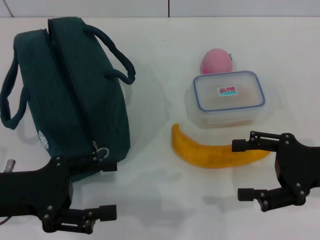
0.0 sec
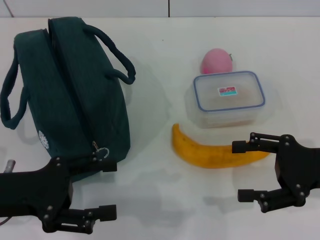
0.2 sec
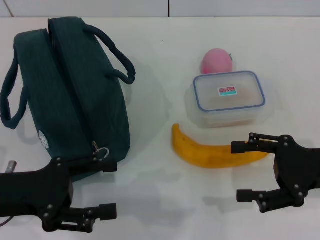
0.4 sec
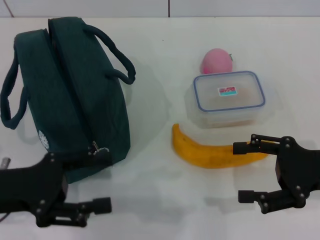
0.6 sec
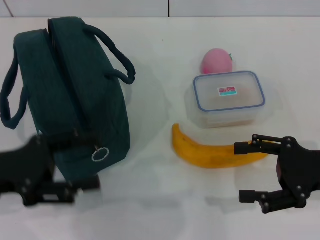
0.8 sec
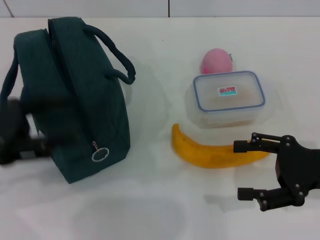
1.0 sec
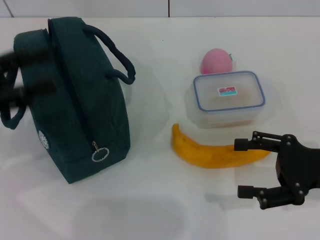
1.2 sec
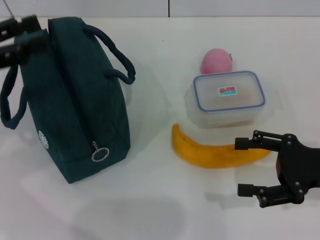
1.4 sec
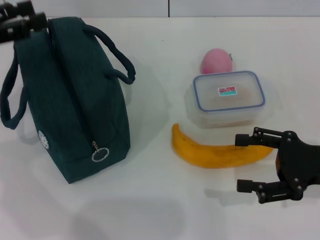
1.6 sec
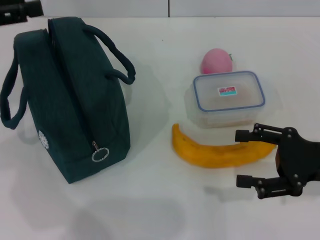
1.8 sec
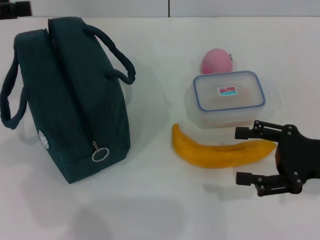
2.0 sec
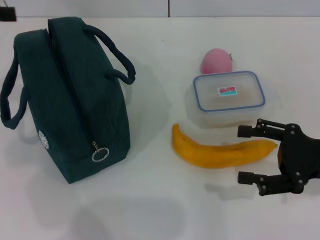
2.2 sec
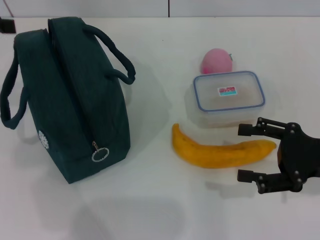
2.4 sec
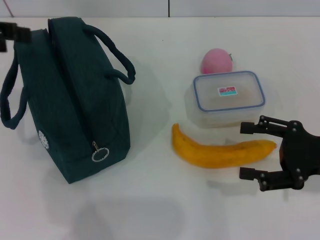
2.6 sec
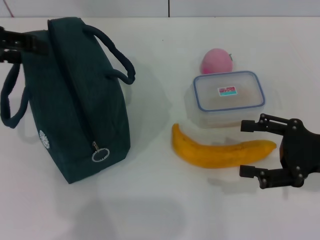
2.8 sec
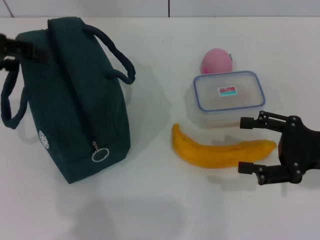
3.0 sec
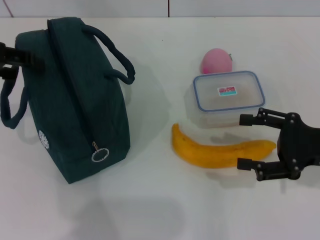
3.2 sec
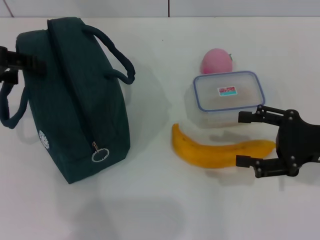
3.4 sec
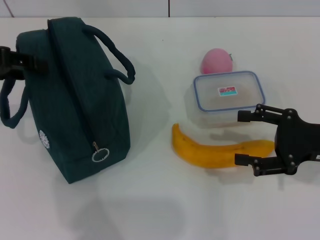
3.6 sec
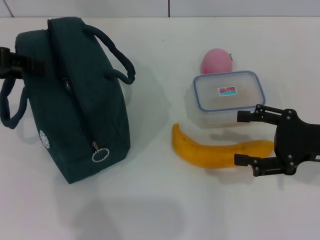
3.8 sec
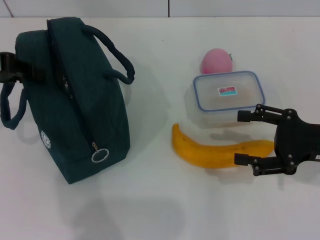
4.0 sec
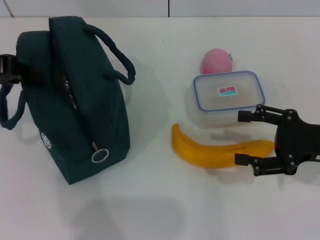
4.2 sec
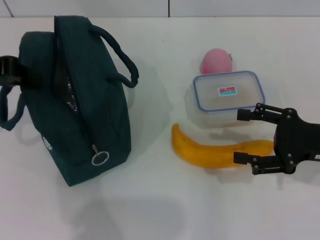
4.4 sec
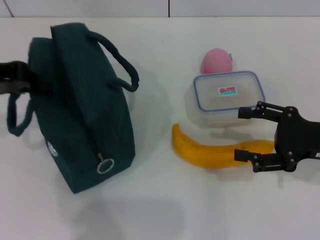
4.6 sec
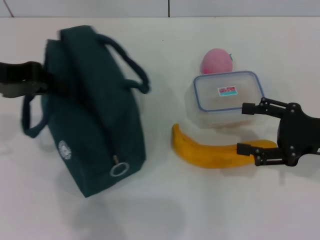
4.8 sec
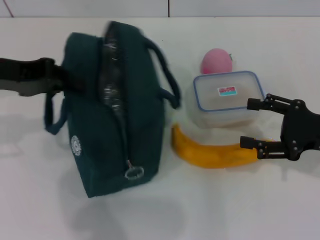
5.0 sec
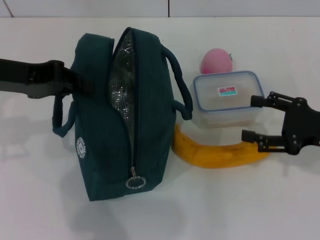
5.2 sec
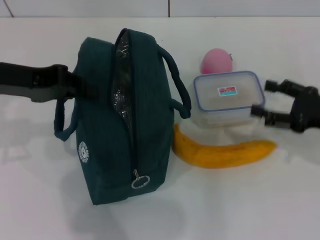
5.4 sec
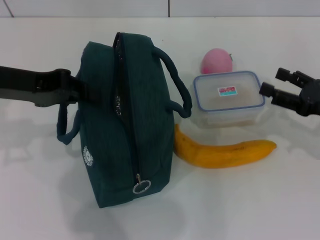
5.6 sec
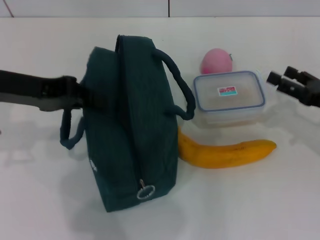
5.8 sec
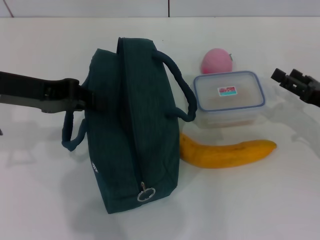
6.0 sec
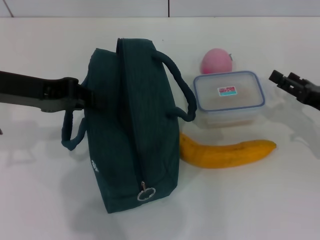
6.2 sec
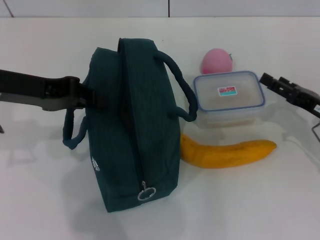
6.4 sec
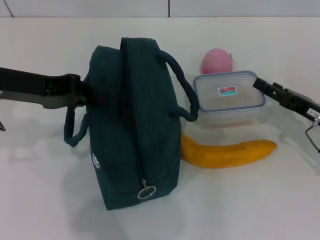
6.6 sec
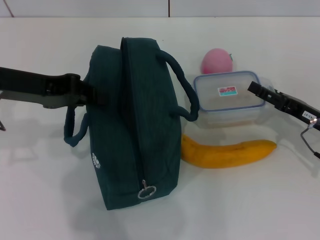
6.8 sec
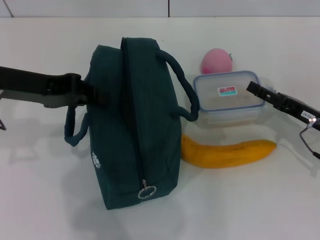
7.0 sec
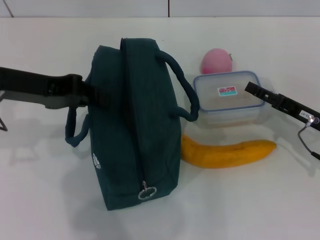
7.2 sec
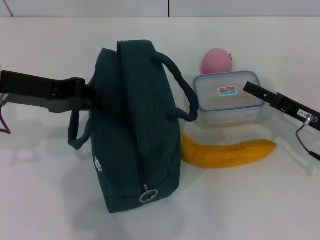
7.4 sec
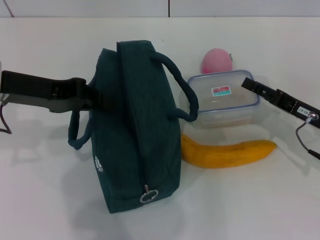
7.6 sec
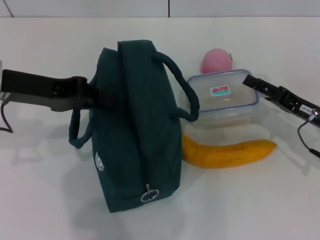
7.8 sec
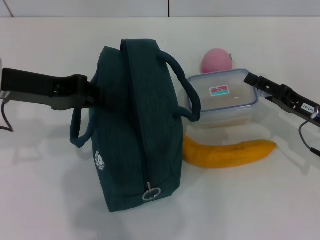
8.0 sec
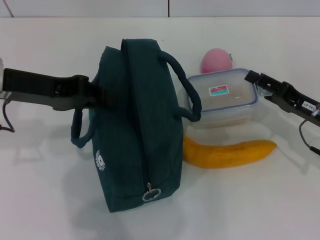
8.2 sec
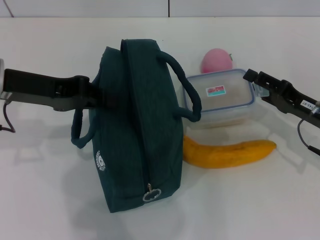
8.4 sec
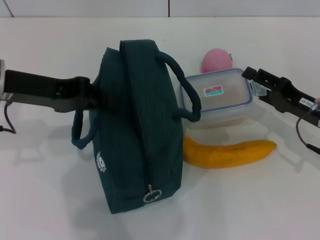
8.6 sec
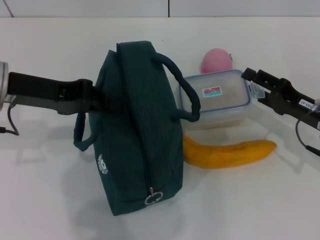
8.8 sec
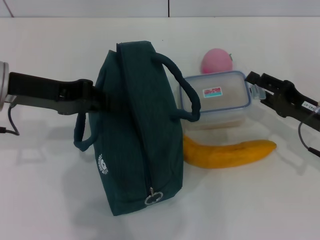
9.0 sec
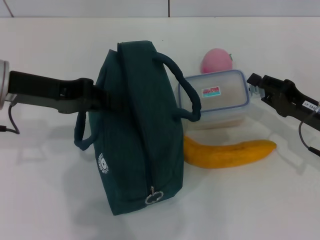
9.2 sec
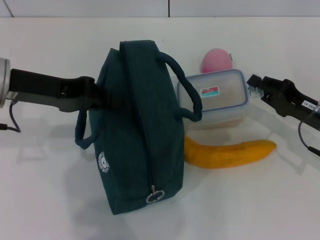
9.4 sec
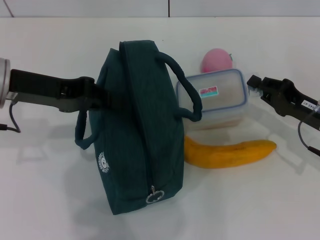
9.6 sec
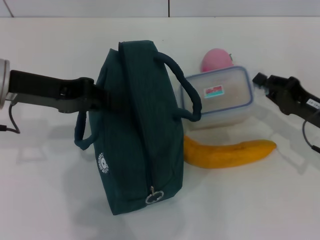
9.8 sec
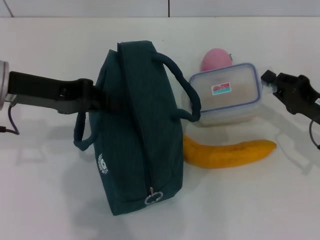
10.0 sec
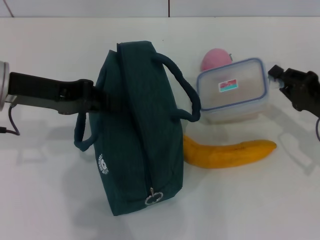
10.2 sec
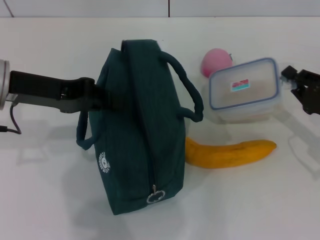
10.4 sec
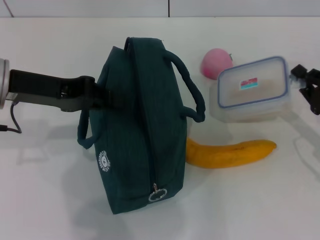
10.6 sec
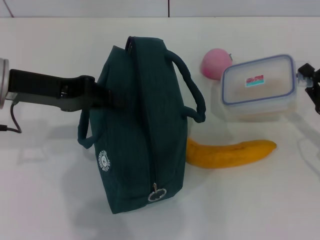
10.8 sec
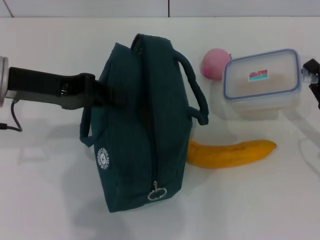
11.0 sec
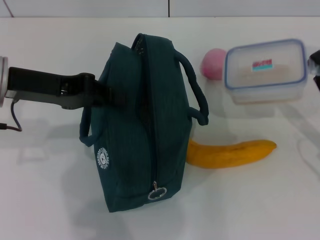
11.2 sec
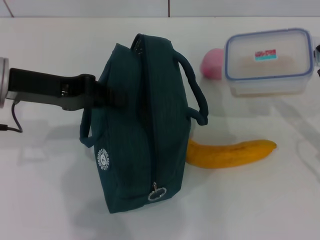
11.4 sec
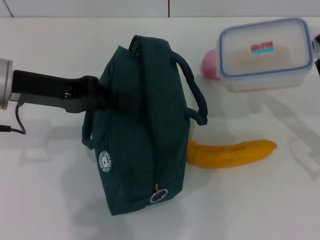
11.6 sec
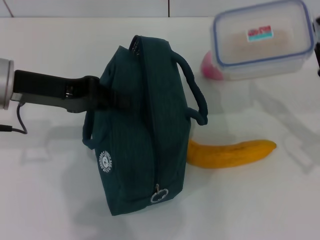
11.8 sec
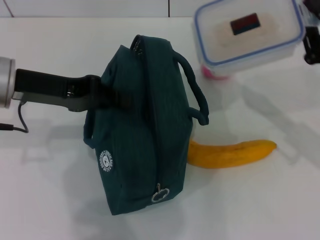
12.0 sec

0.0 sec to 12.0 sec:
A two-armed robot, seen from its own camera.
Step, 0.0 sec to 4.4 sec: Hold the lunch bag with your left hand.
Step, 4.8 sec to 10.0 sec: Pick up the lunch box with your right hand.
0.0 sec to 1.6 sec: The left gripper heads forward, upward and to the left, covering approximately 15 cm.
1.6 sec to 3.0 sec: The left gripper heads upward, covering about 5 cm.
3.0 sec to 4.4 sec: The left gripper closes.
4.4 sec to 6.0 sec: The right gripper ends up approximately 5 cm from where it was. Meanwhile the left gripper is displaced to the right by roughly 5 cm.
6.0 sec to 7.6 sec: There are only small adjustments of the grippers.
9.0 sec to 10.4 sec: The right gripper closes its fingers.
10.4 sec to 12.0 sec: The right gripper is displaced upward by roughly 5 cm.

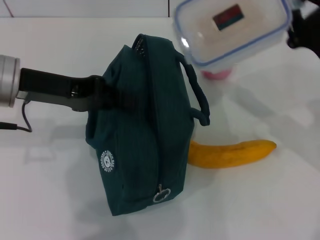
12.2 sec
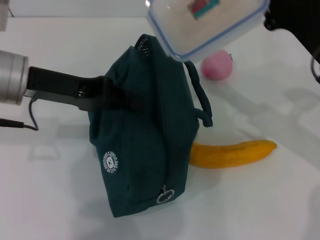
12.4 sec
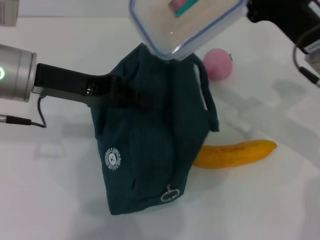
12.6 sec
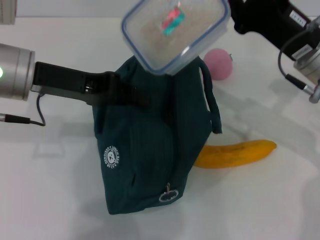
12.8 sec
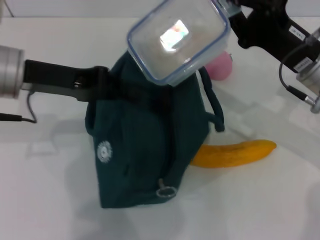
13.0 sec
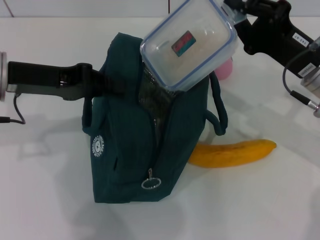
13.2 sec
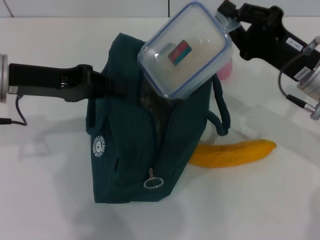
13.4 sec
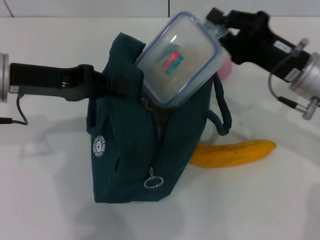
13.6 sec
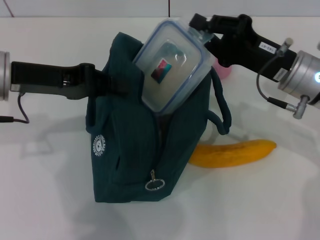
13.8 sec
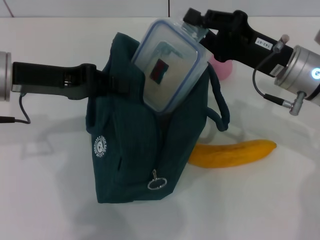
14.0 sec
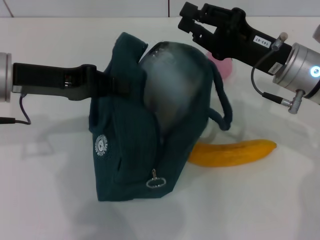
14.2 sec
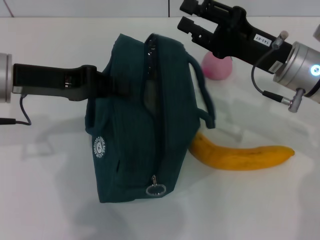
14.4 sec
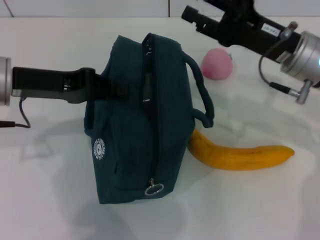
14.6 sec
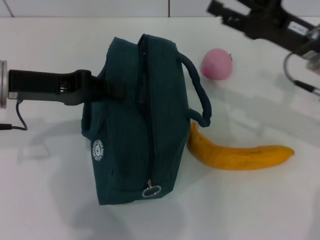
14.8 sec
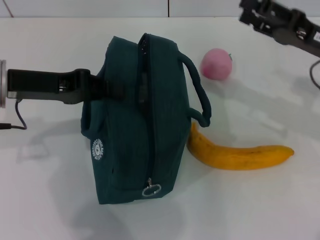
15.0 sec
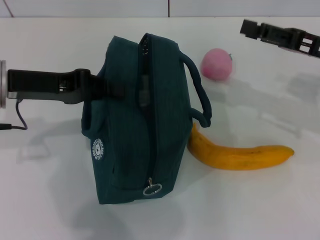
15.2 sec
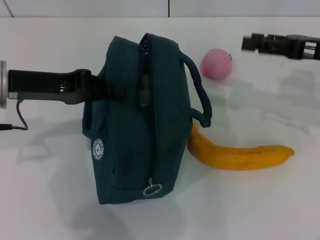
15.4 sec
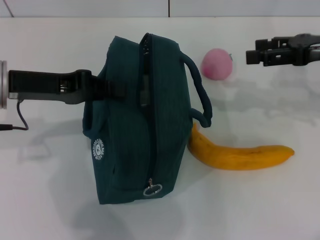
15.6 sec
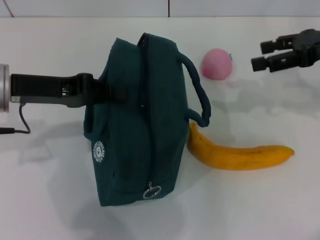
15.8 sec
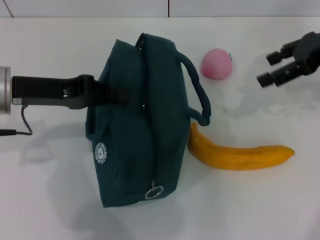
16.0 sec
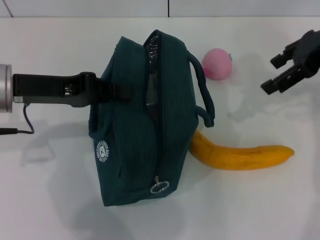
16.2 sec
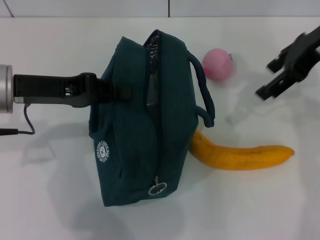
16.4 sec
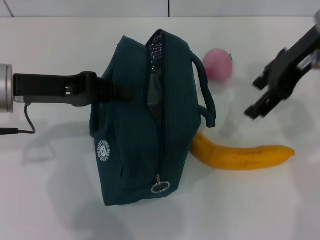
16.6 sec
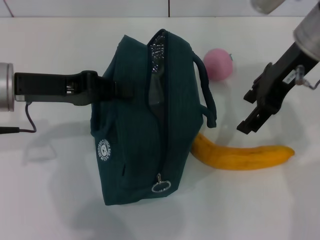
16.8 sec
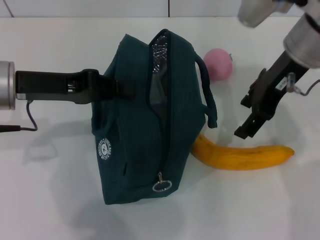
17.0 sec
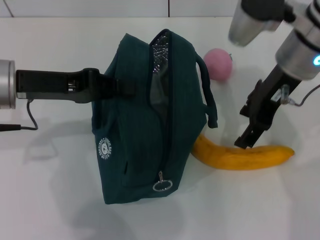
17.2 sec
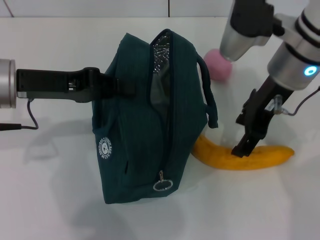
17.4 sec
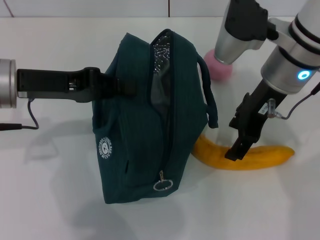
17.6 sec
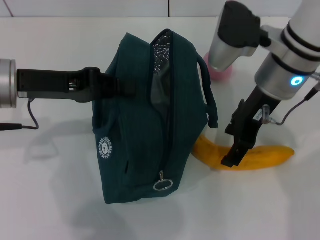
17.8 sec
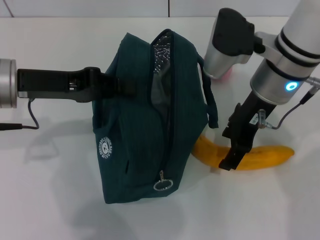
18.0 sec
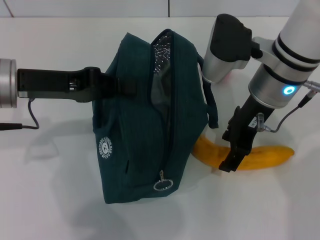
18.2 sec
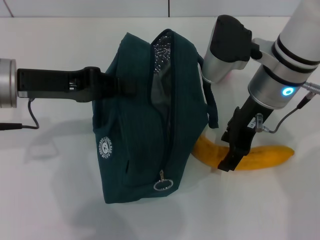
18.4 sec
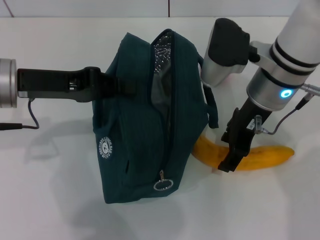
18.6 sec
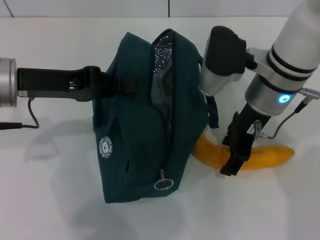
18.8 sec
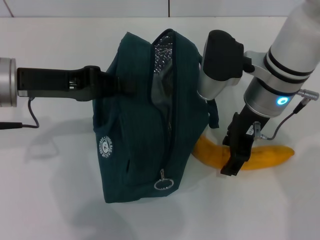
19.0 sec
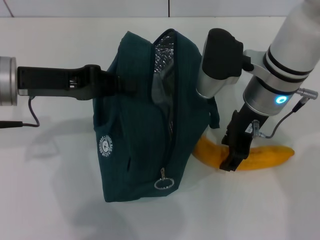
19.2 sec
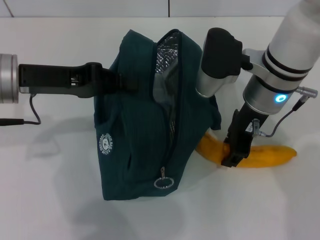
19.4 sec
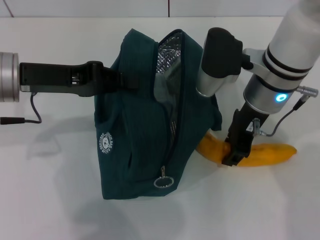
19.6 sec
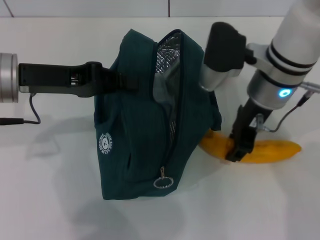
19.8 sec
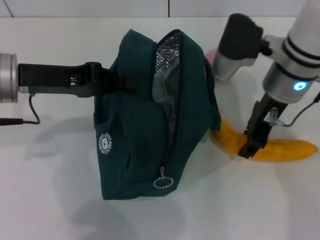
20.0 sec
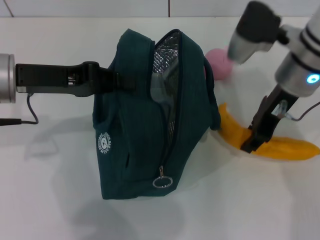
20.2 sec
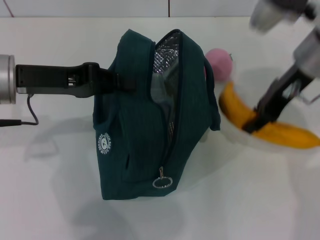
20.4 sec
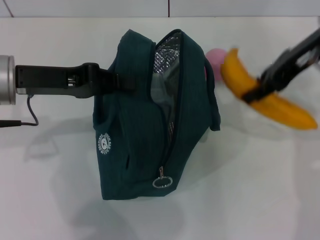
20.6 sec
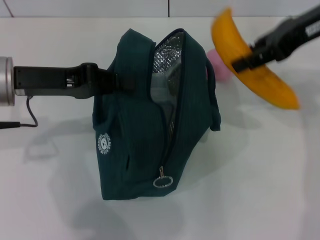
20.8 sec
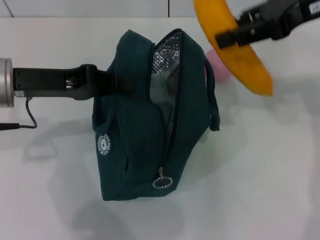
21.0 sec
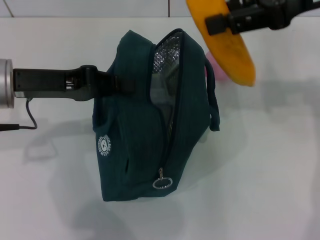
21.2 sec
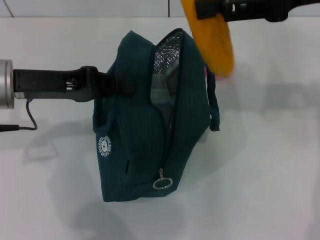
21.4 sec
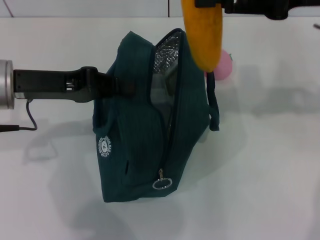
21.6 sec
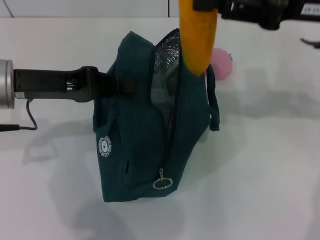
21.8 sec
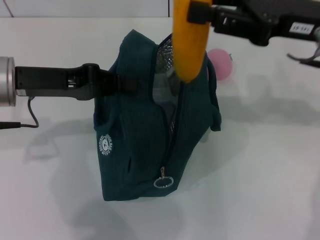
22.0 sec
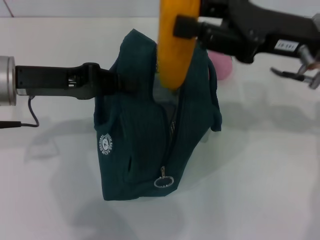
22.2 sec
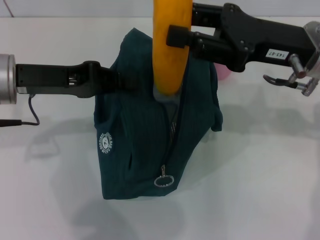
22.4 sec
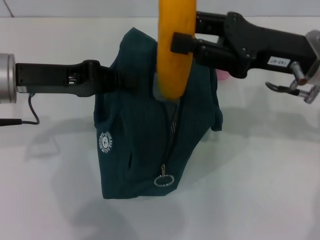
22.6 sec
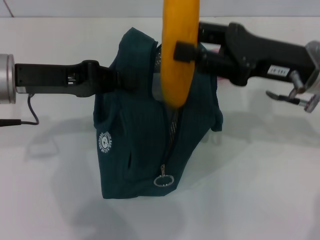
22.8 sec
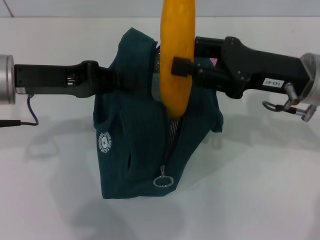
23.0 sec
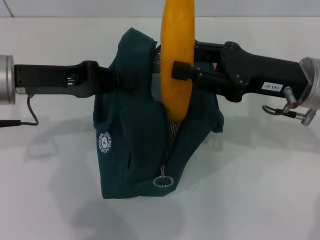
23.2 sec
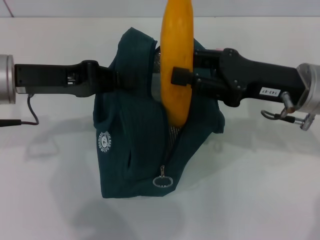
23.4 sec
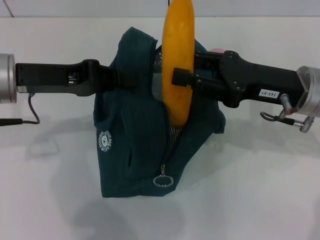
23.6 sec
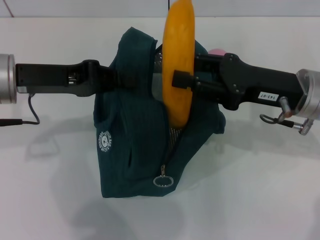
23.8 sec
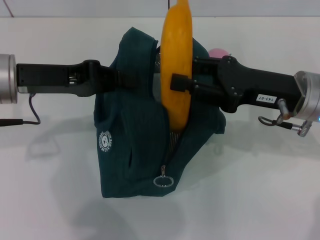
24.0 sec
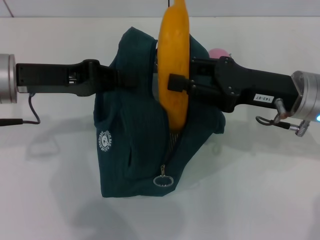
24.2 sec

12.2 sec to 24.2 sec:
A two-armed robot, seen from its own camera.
Step, 12.2 sec to 14.2 sec: Place the lunch box into the lunch bag with your right hand.
Step, 14.4 sec to 19.8 sec: Take the banana with your right hand.
12.2 sec to 13.8 sec: The right gripper is displaced to the left by some 5 cm.
13.8 sec to 15.2 sec: The right gripper goes about 10 cm to the right, and opens.
15.2 sec to 16.6 sec: The right gripper shifts approximately 15 cm upward and to the left.
16.6 sec to 18.2 sec: The right gripper travels downward and to the left by roughly 10 cm.
18.2 sec to 19.8 sec: The right gripper closes up.
19.8 sec to 21.2 sec: The right gripper heads upward and to the right, covering some 15 cm.
21.2 sec to 22.6 sec: The right gripper goes roughly 15 cm downward.
22.6 sec to 24.2 sec: There are only small adjustments of the grippers.
